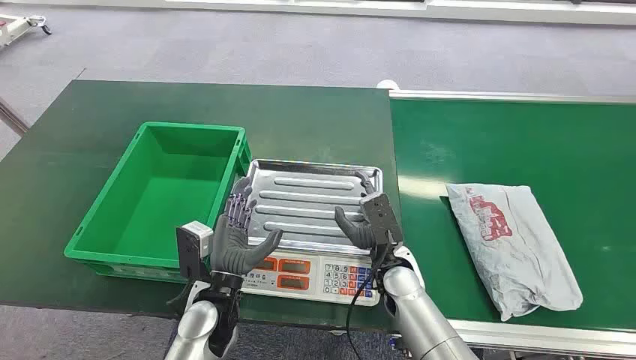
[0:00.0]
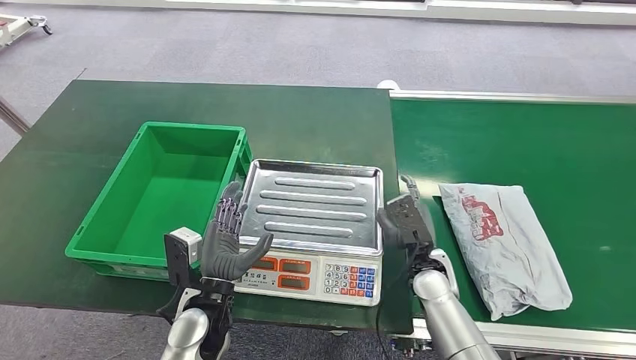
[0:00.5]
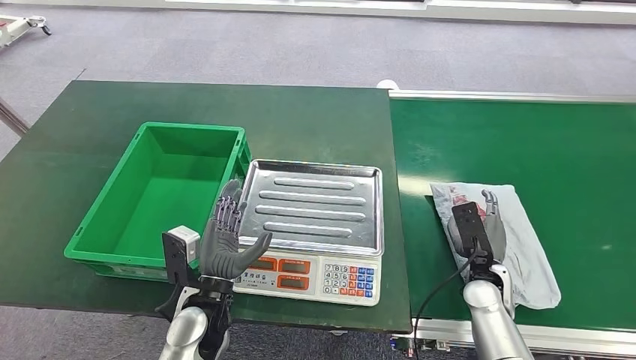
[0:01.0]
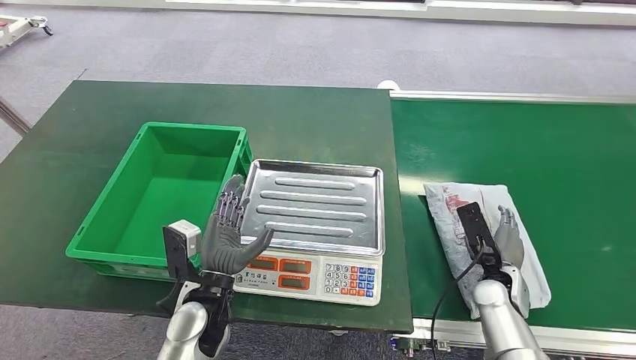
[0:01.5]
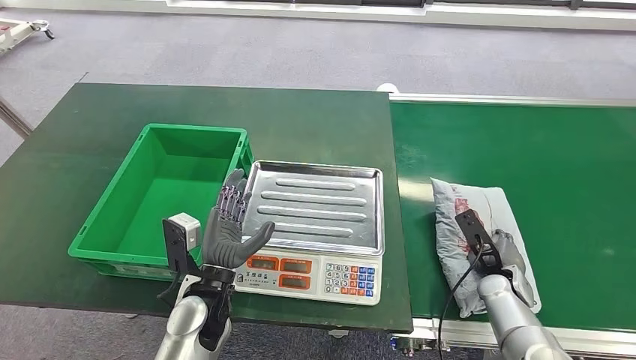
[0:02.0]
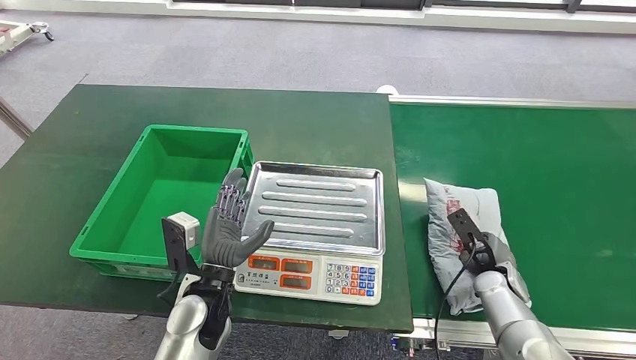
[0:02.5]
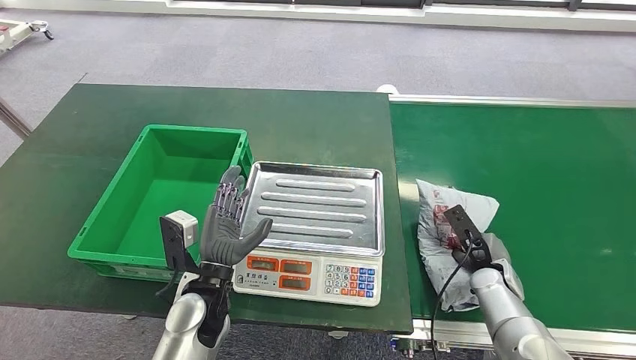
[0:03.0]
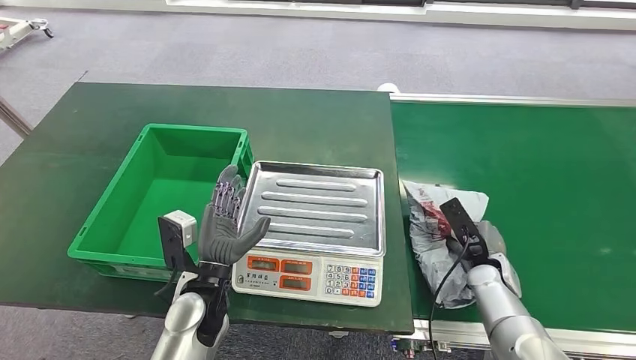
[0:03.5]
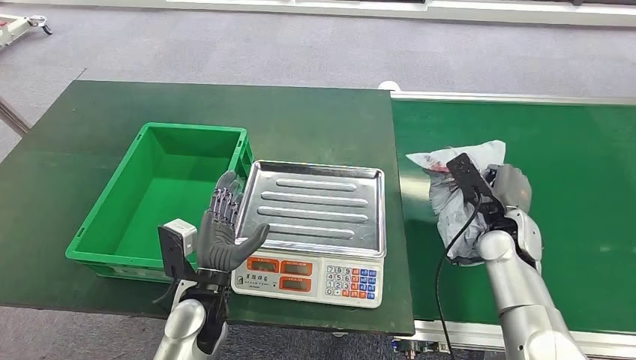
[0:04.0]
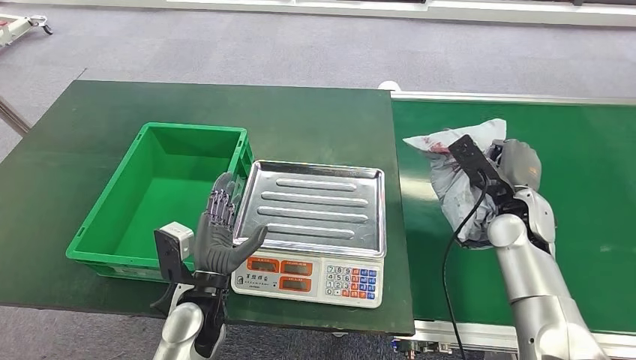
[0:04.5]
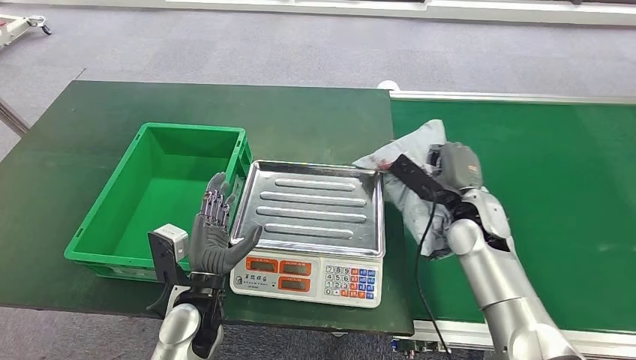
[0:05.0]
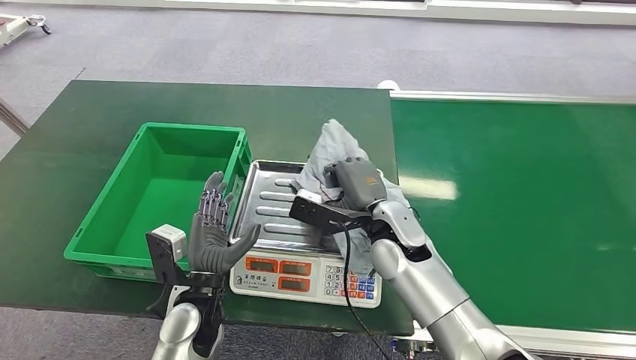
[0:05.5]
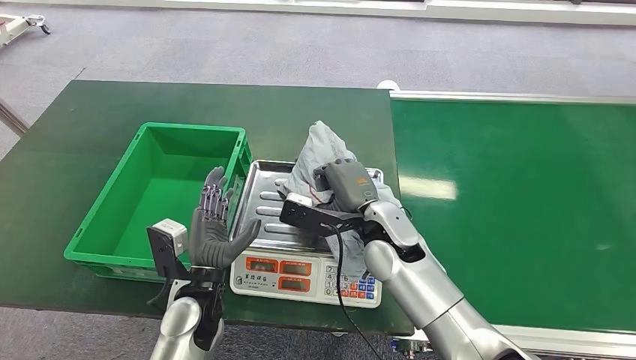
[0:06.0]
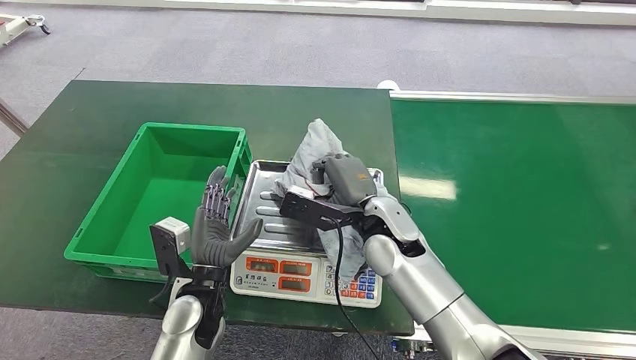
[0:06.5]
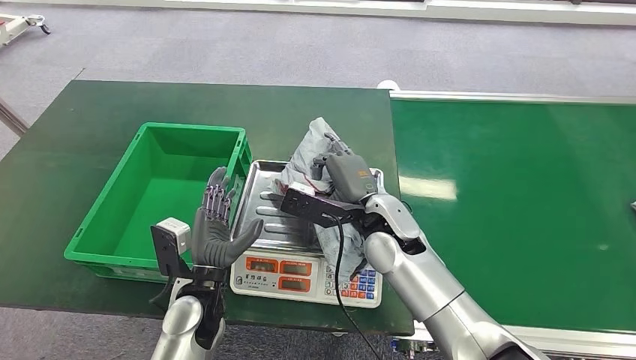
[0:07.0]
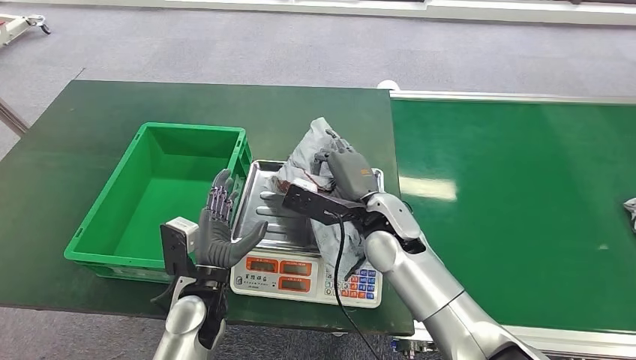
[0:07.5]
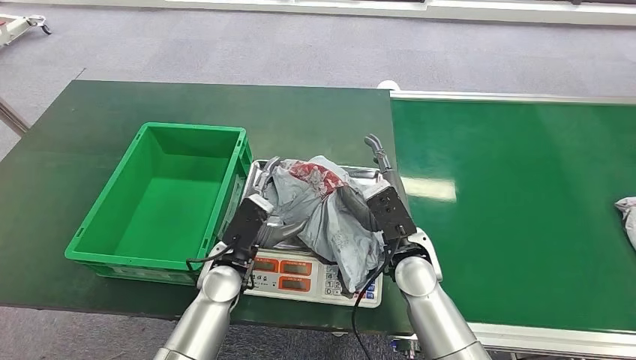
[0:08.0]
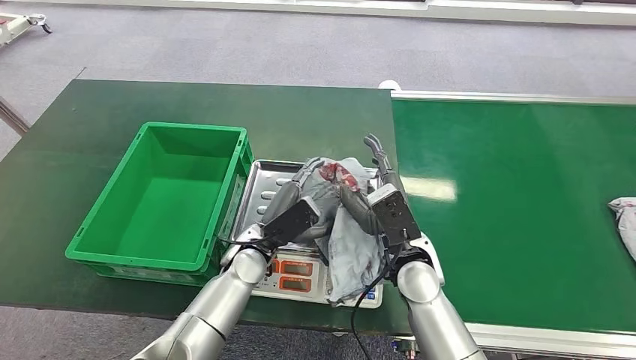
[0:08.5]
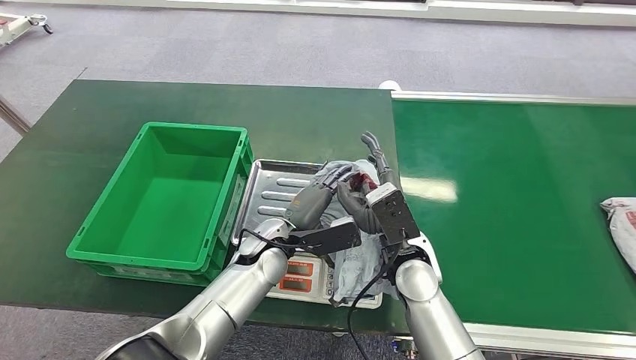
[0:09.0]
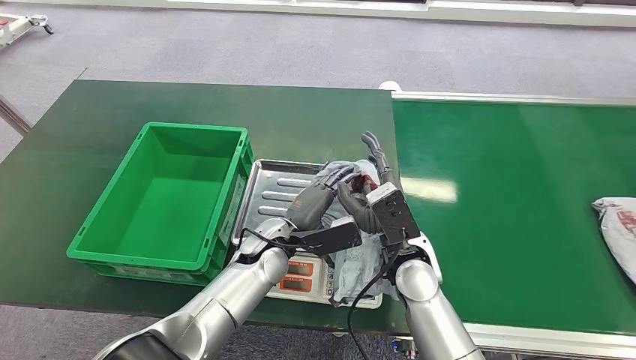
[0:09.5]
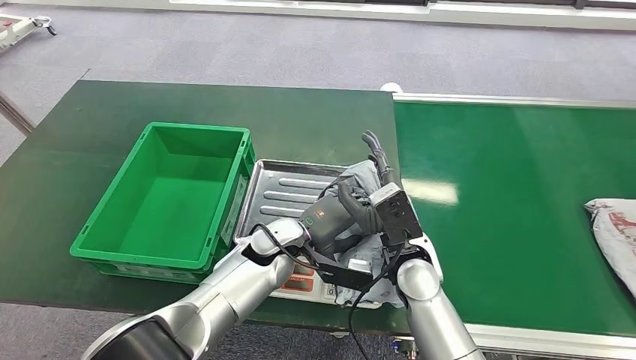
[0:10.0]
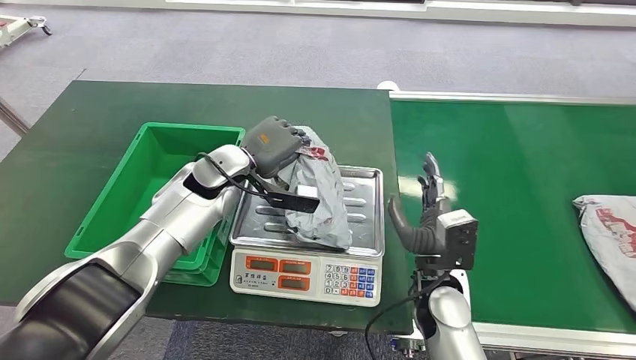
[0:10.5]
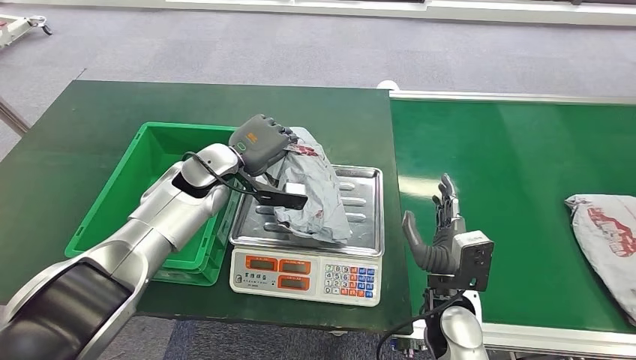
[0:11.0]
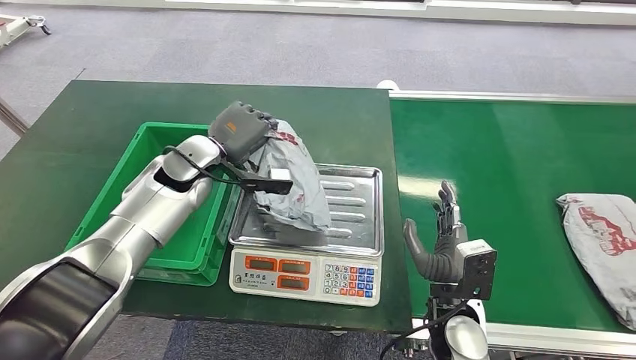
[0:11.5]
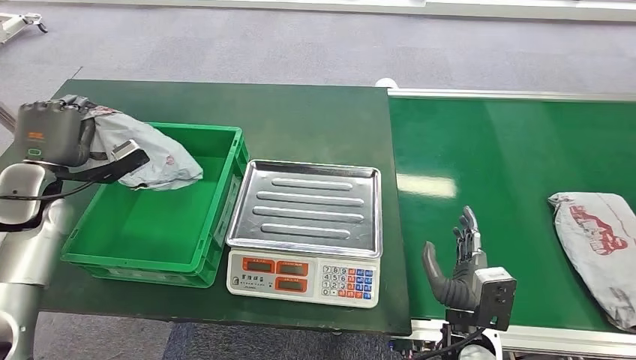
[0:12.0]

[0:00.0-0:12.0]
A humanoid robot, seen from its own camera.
Step, 0:00.0 to 0:04.5: Pick up the package from the conveyor belt.
Step, 0:05.0 to 0:07.5: Place the package onto the inbound machine.
Step, 0:08.0 to 0:11.5: Pick up the package from the inbound machine.
0:06.0 to 0:08.0: The right hand shifts by roughly 5 cm. The left hand shifts about 5 cm forward.

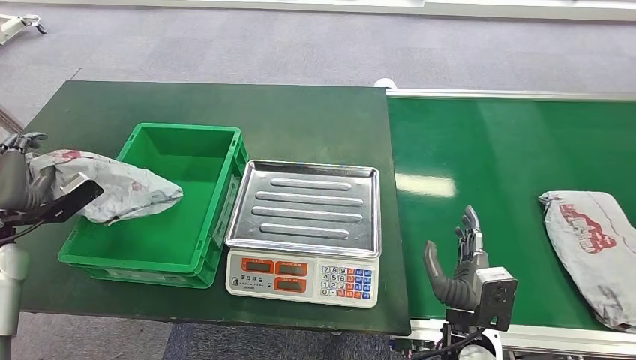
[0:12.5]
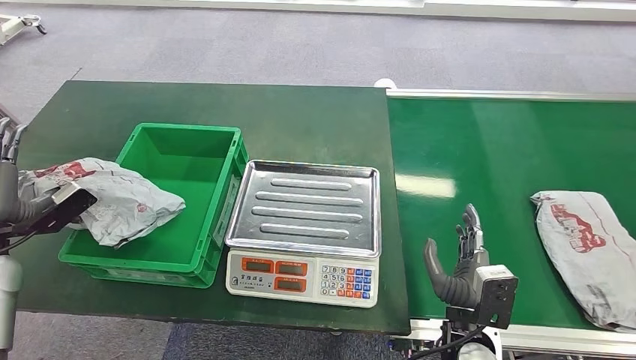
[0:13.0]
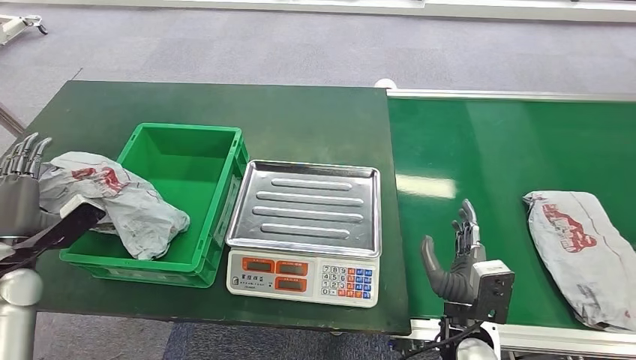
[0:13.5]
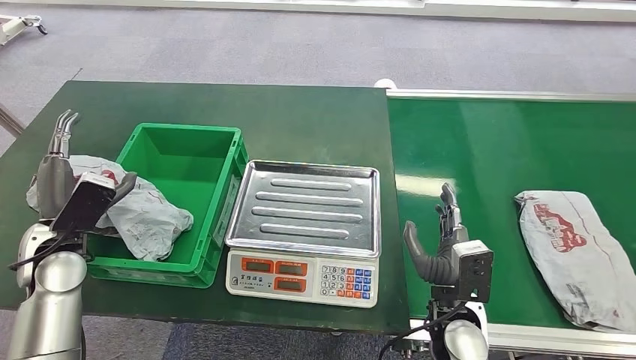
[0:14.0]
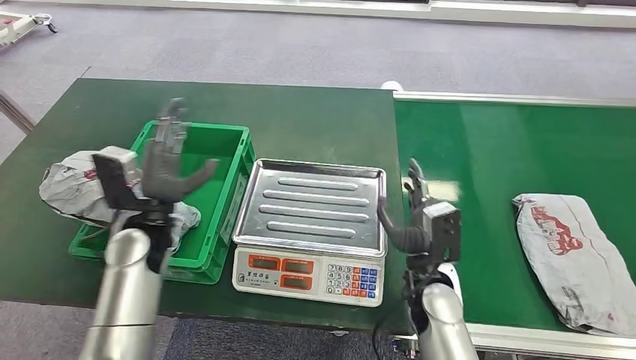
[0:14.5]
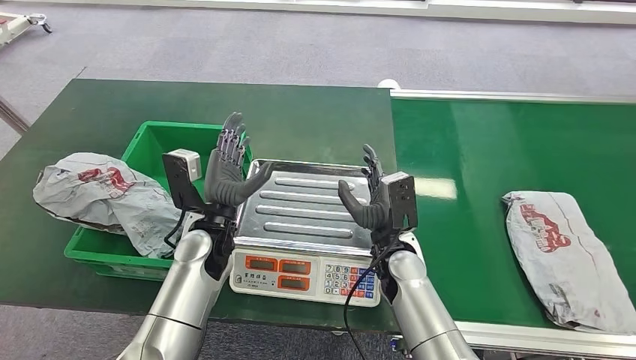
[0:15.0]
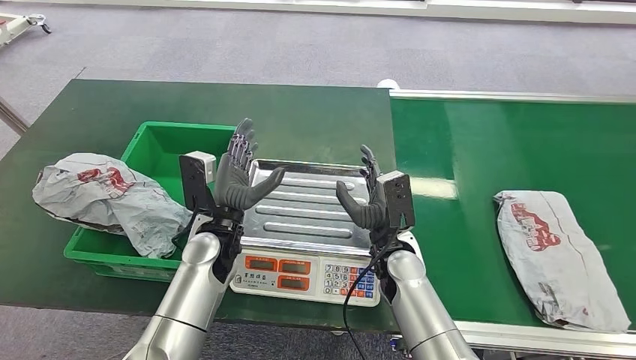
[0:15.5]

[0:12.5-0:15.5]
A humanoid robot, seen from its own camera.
Step, 0:12.5 to 0:15.5: Place the package into the parcel locker.
0:12.5 to 0:14.0: The left hand heads to the right, covering some 10 cm.

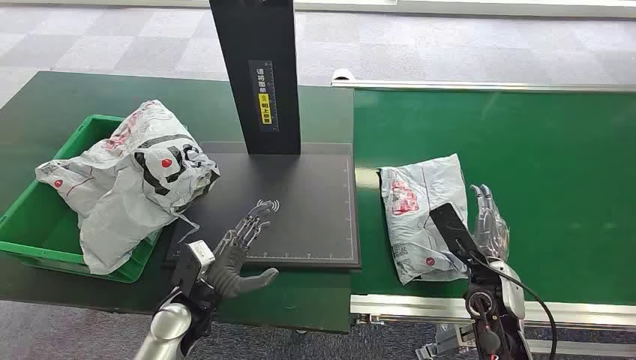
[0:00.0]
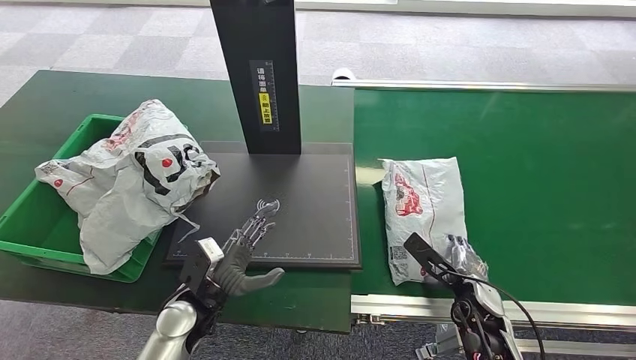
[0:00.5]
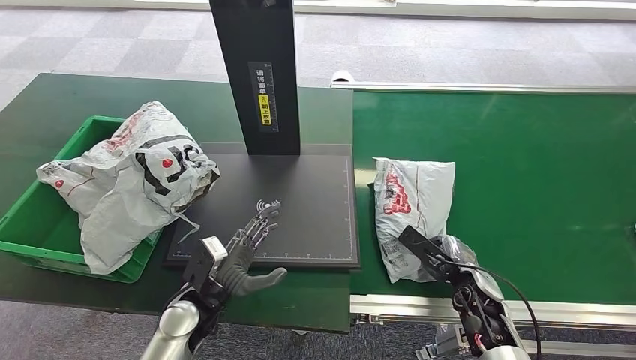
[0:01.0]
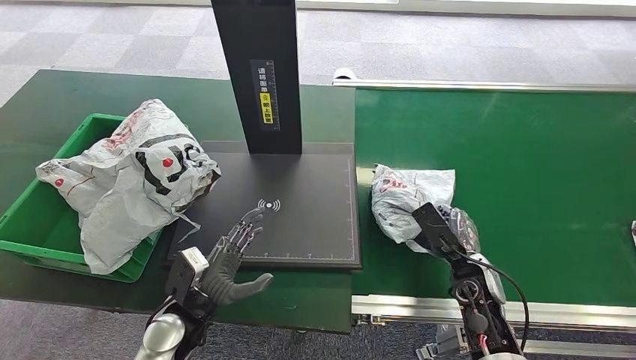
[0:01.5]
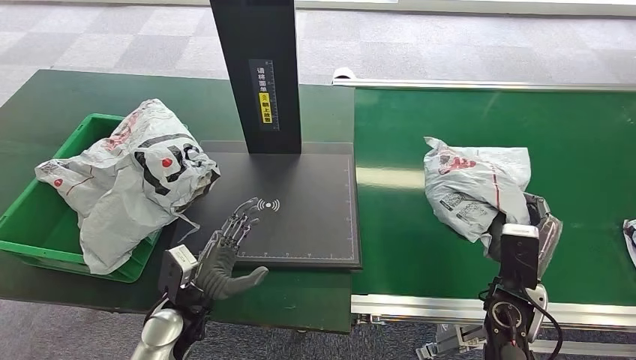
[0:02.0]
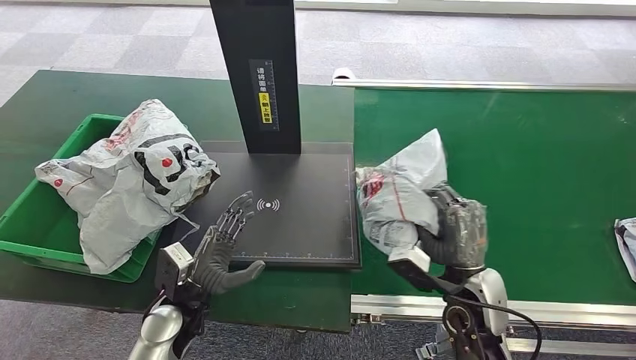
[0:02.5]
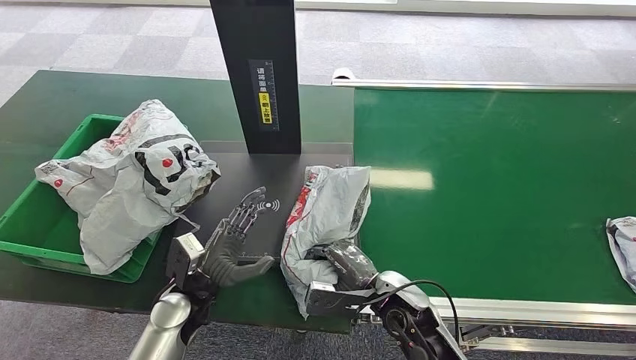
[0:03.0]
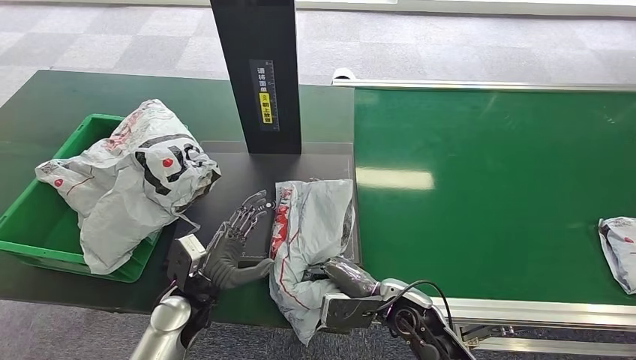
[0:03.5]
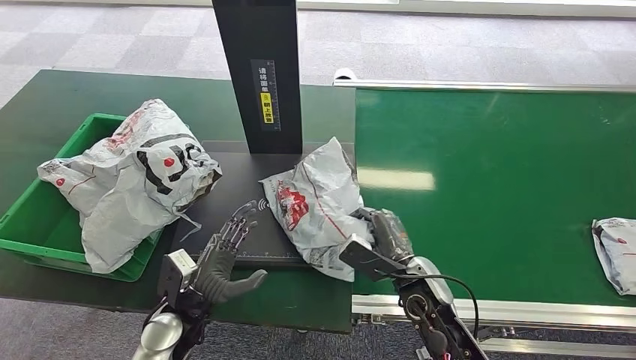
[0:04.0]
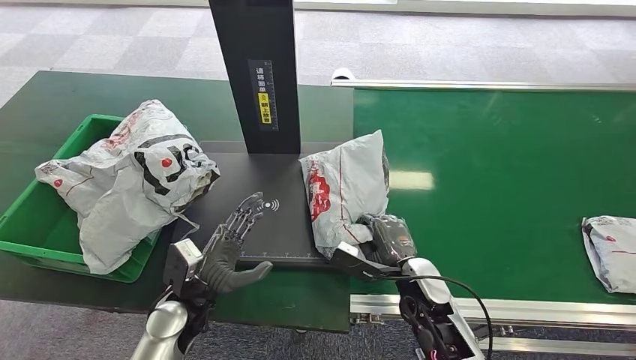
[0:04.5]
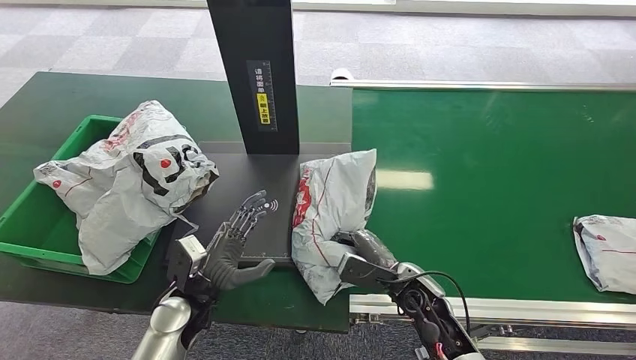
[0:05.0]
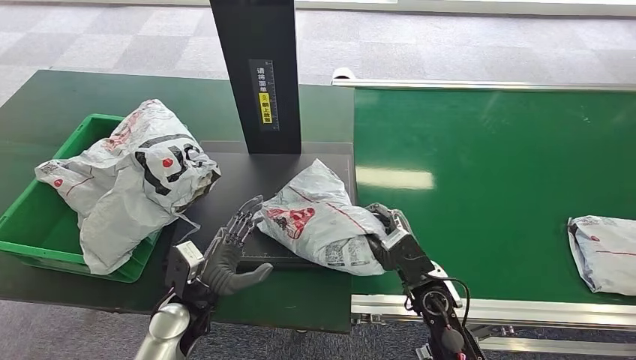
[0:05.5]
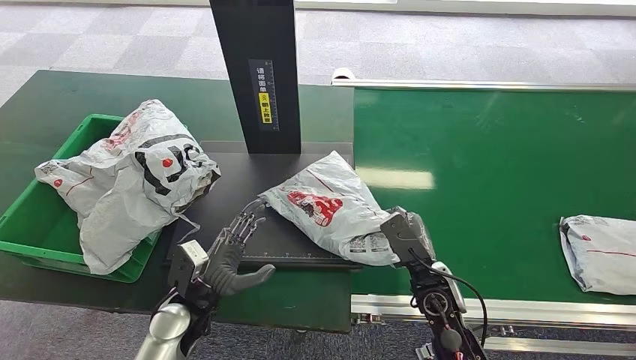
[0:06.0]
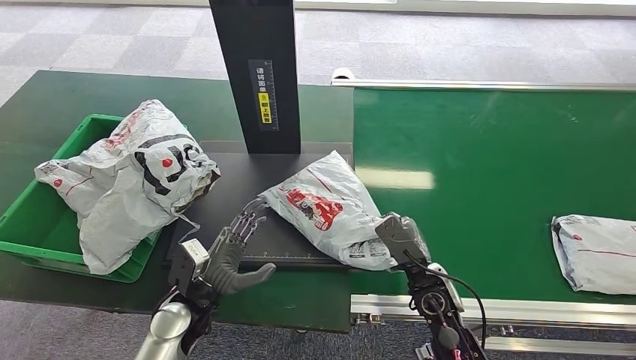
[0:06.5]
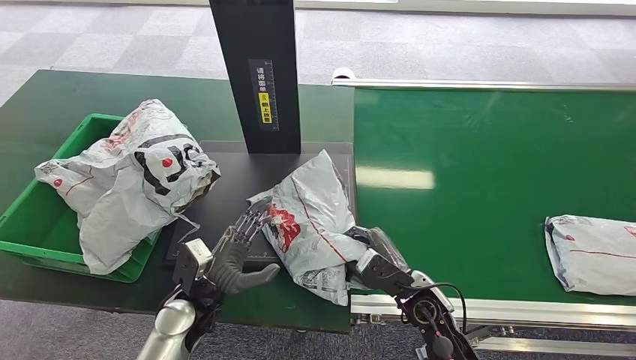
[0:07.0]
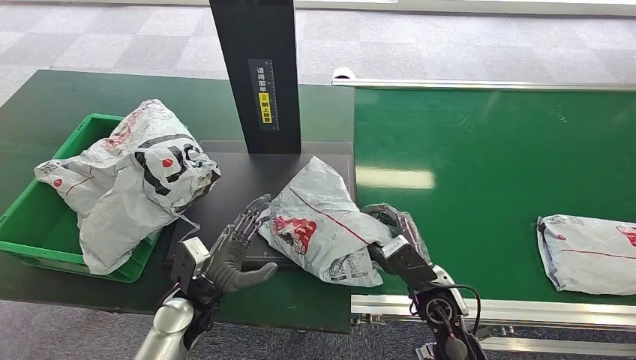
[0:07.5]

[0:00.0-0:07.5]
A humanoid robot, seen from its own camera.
Step, 0:00.0 to 0:02.0: Pick up the package from the conveyor belt.
